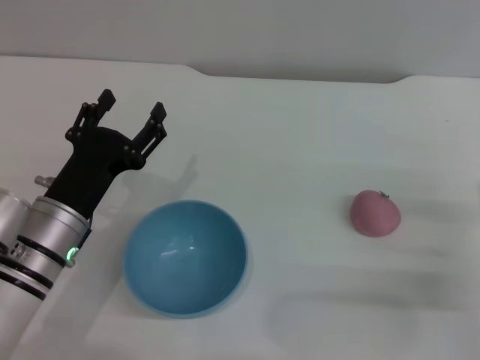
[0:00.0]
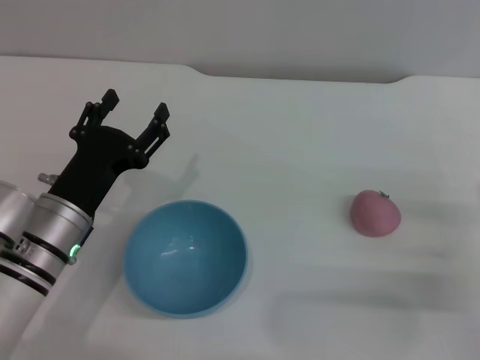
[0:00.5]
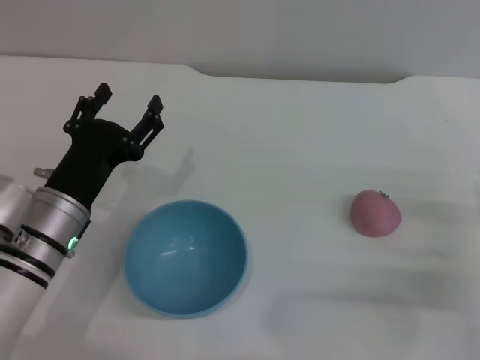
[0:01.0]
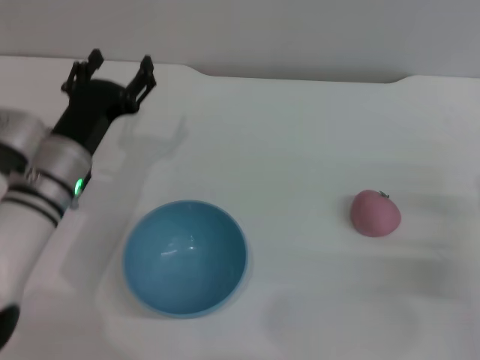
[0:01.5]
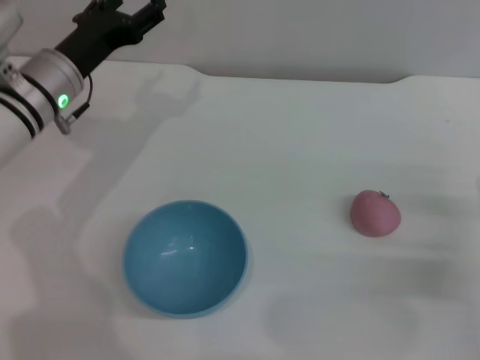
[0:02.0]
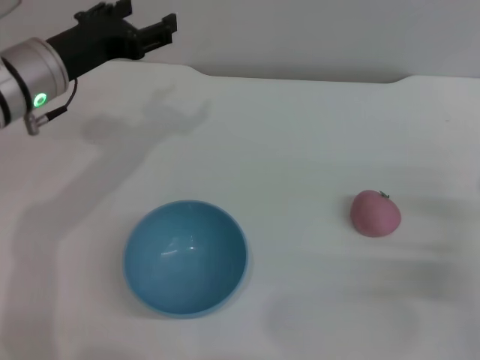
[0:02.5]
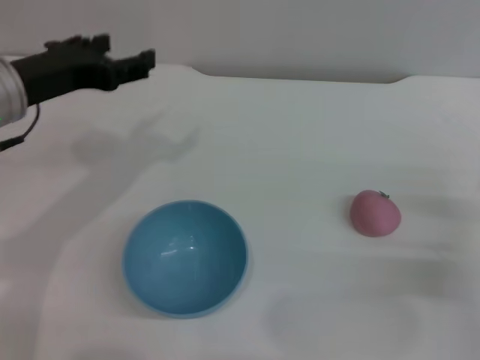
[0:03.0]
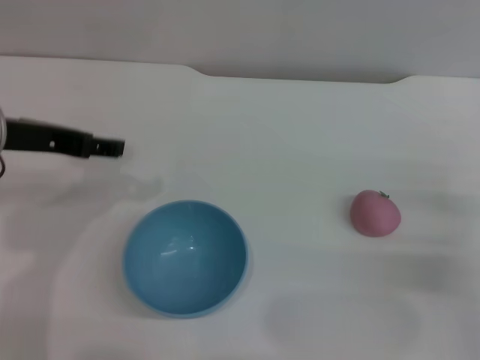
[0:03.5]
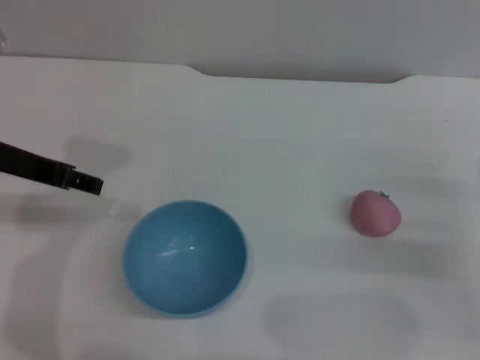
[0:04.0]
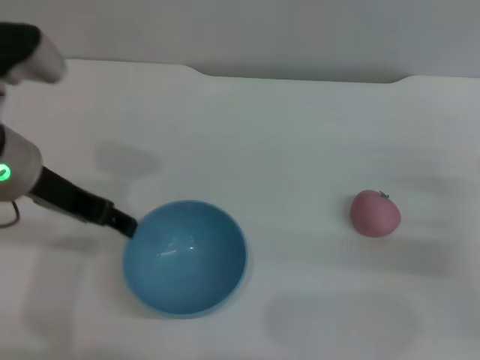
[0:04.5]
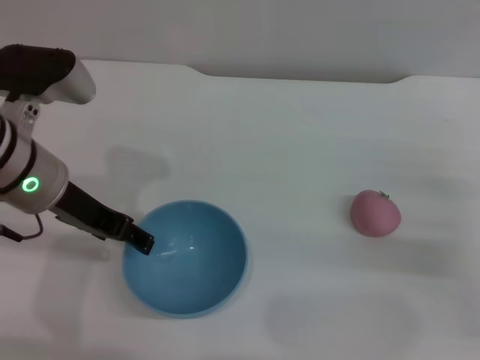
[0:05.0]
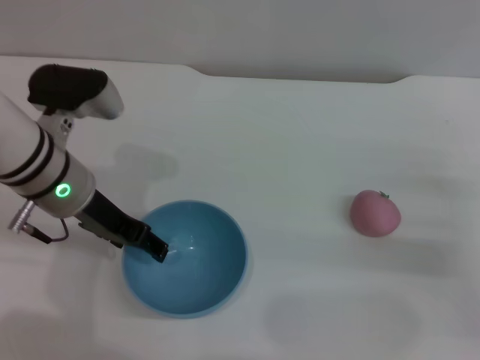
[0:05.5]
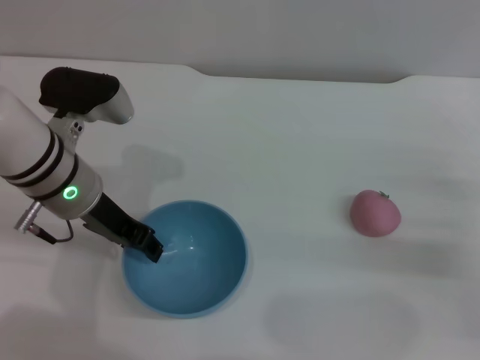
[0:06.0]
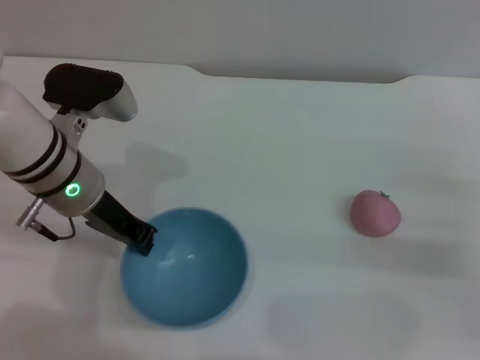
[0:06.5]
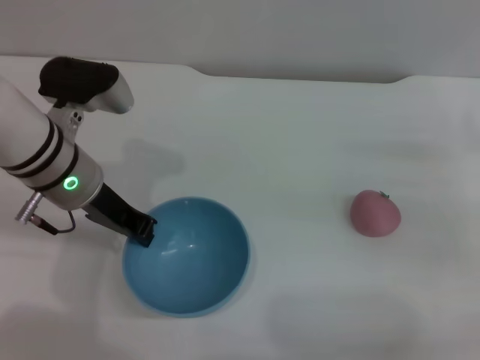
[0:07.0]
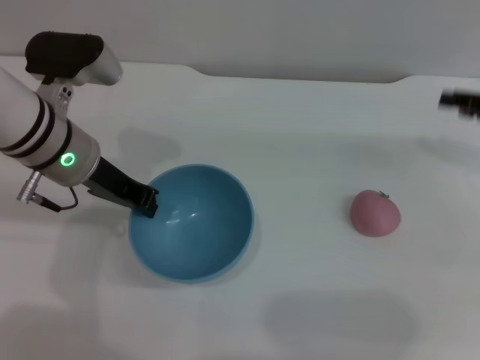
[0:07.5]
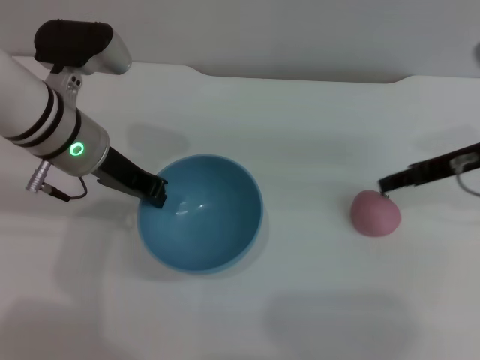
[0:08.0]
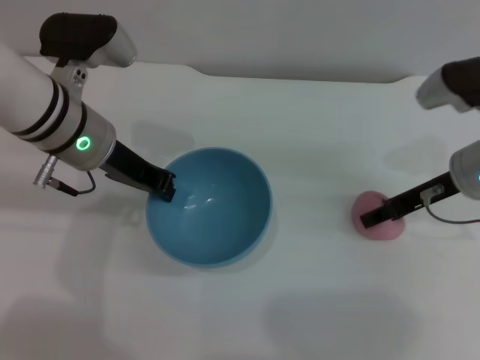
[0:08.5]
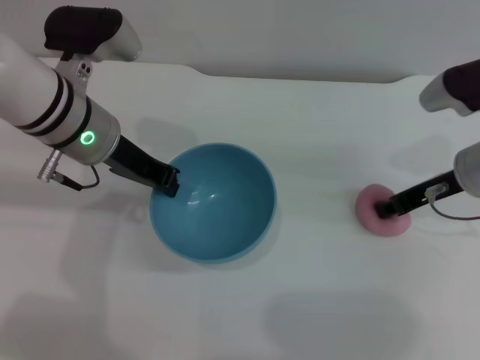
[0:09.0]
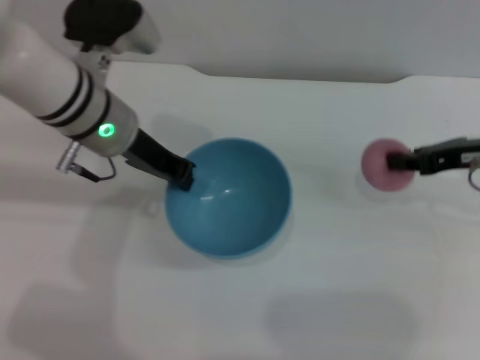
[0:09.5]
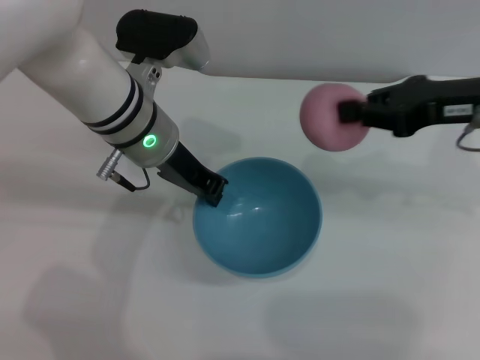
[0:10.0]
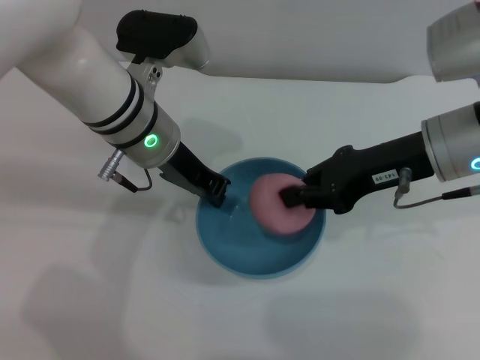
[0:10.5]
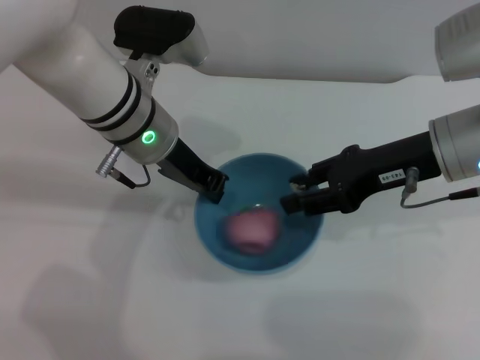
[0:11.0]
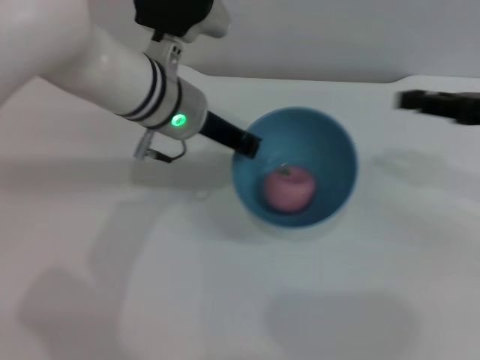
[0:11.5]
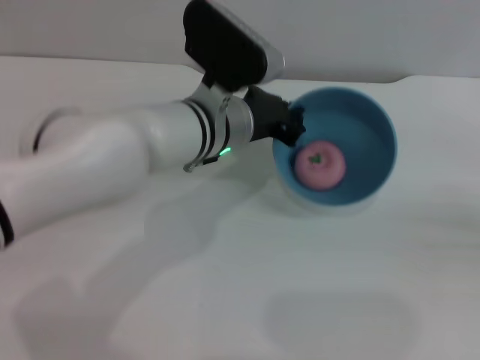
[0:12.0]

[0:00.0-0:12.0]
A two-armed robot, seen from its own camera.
Task of the whole recording: put the peach into the blue bowl and pour it out repeatedly.
Step, 0.0 to 7.5 s: Pick up the bowl with the left gripper.
Step, 8.0 to 9.5 s: Pick up the peach with the right gripper.
Step, 10.0 to 11.0 s: Place the peach into the bowl.
0.0 to 2.0 s: The left gripper is displaced forward and upward by approximately 15 cm.
2.0 to 4.0 s: The left gripper shifts roughly 10 cm backward and upward.
4.0 to 6.0 s: The left gripper is displaced downward and to the right by roughly 10 cm.
6.0 to 8.0 s: The left gripper closes. The right gripper travels forward, upward and to the left by roughly 15 cm.
8.0 to 10.0 s: The left gripper shifts roughly 5 cm to the right; the right gripper travels upward by about 5 cm, and closes.
10.0 to 12.0 s: The left gripper shifts approximately 5 cm to the right. The right gripper shifts approximately 25 cm to the right, backward and downward, and opens.

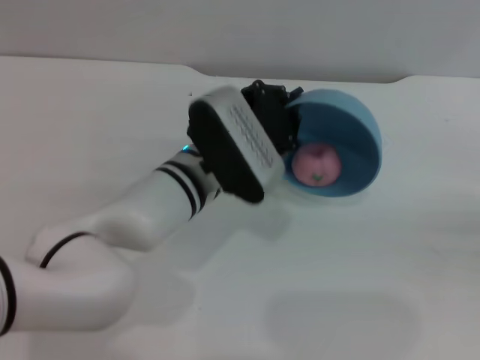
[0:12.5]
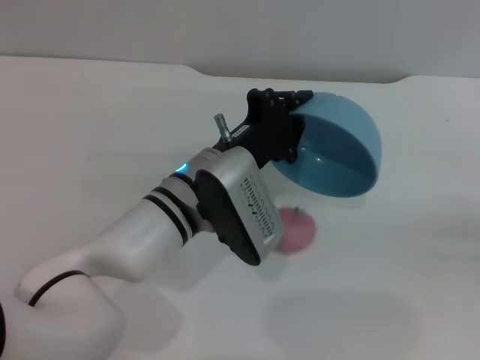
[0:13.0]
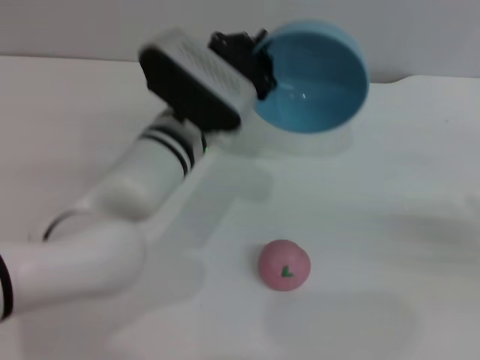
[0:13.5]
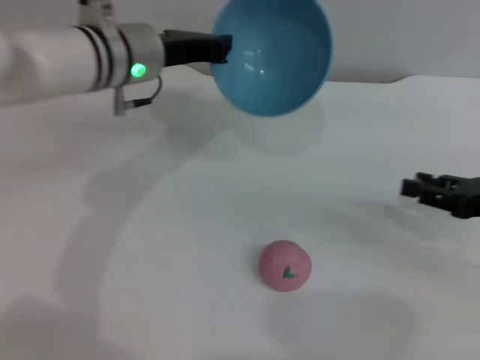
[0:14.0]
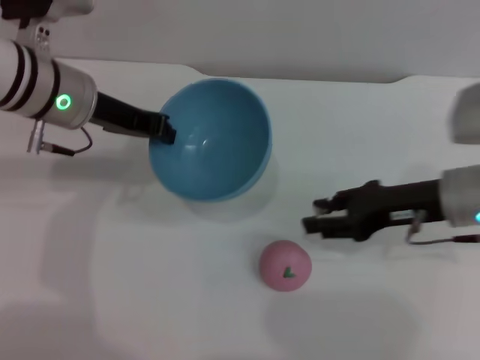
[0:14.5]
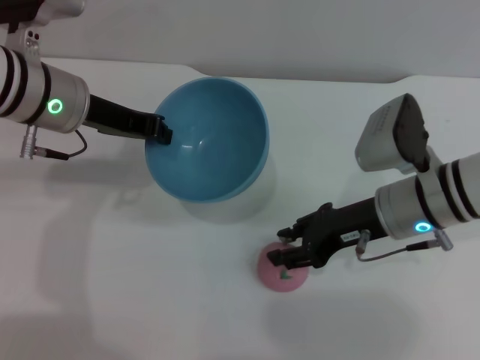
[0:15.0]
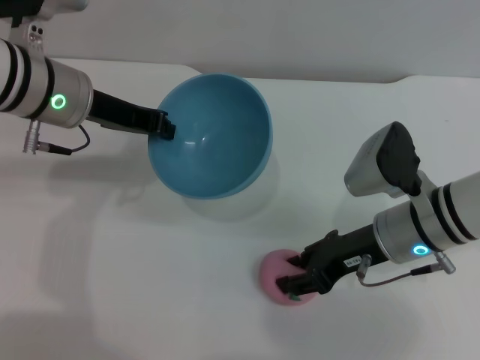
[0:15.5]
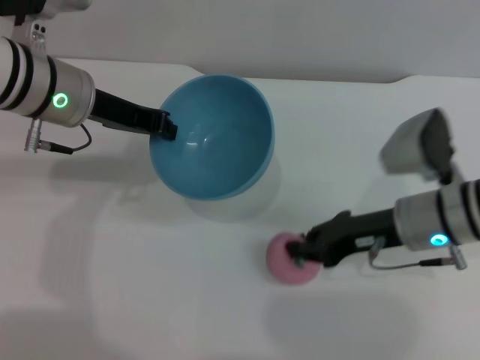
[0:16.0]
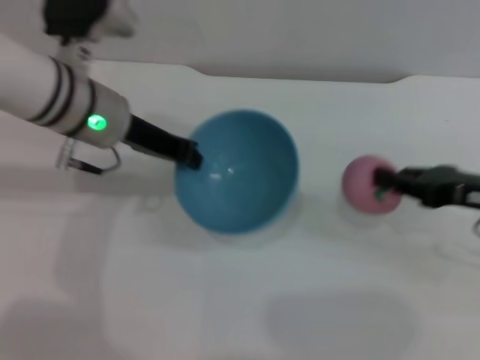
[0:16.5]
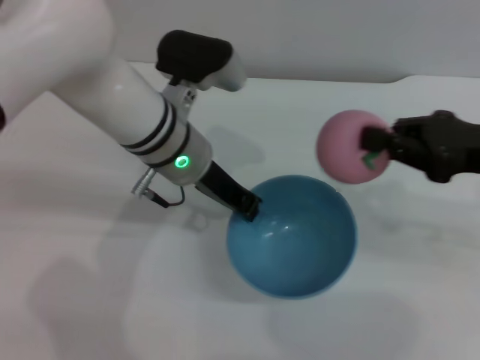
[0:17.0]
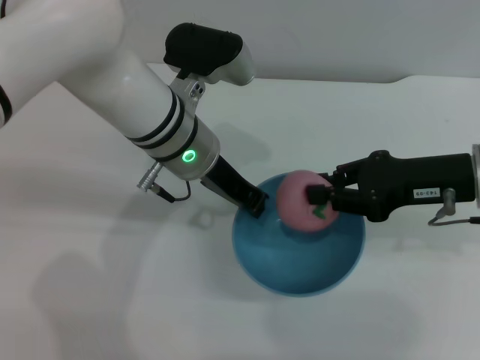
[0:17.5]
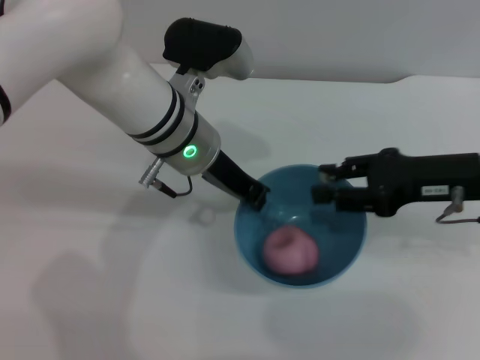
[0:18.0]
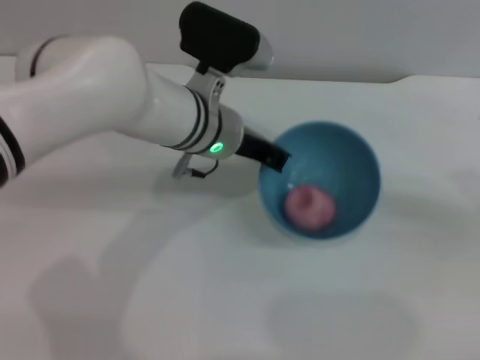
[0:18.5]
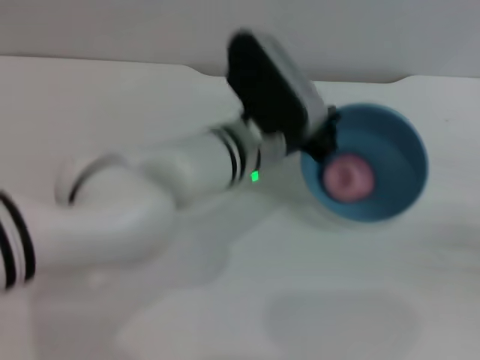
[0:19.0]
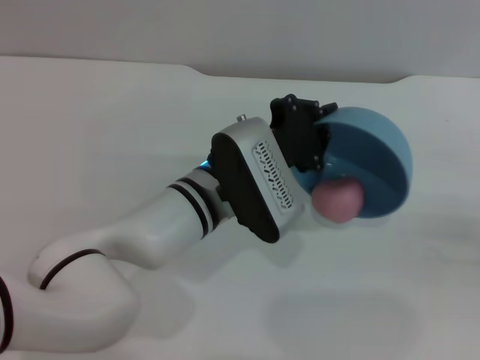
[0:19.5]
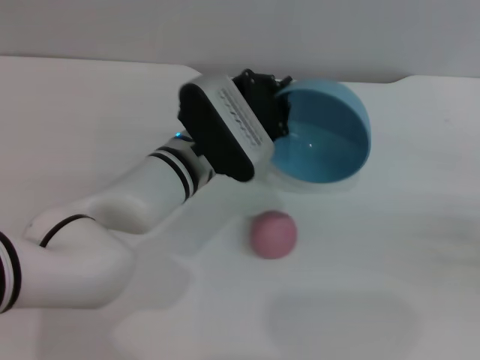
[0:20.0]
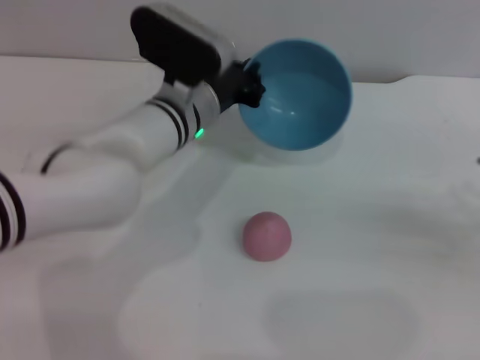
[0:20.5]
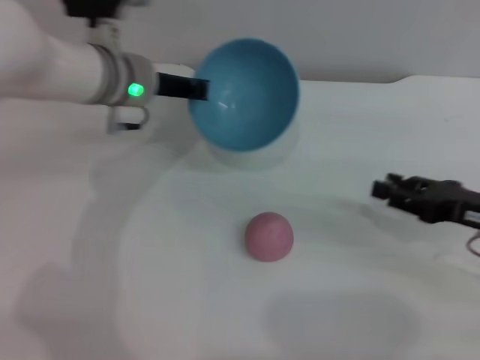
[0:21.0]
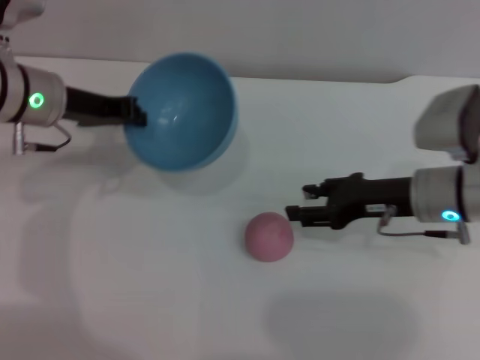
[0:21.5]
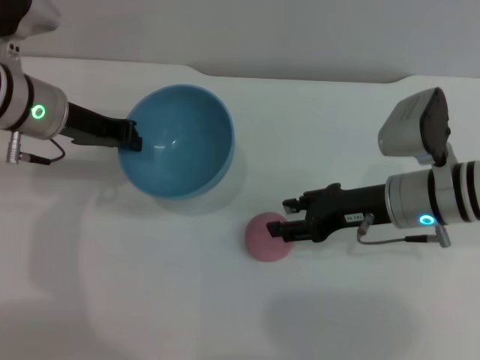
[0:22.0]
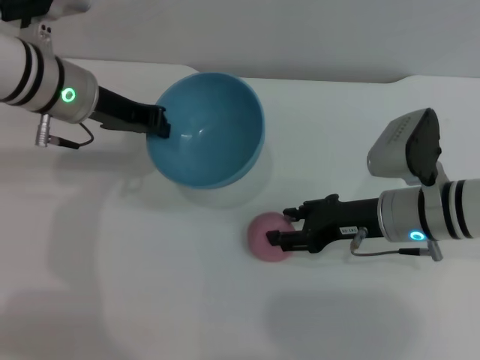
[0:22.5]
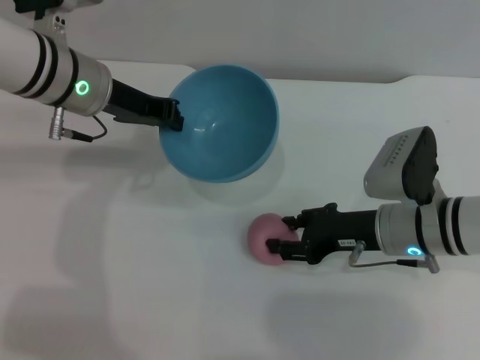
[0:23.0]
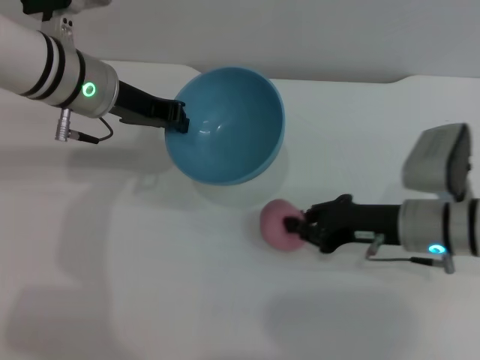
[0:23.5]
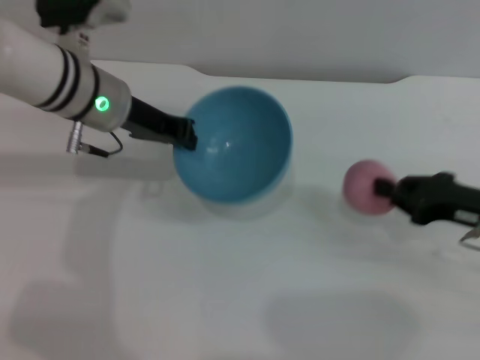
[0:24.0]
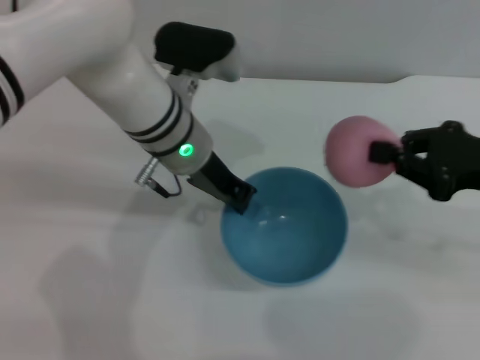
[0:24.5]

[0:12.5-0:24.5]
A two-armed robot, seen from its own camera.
Task of the whole recording: put the peach into the blue bowl and pour it out repeatedly.
Step, 14.0 to 16.0 s: Pick up the peach with the right gripper.
Step, 16.5 to 18.0 s: Place the peach into the bowl.
Step, 18.5 to 19.5 s: Pour the peach out of bowl.
Step, 20.0 to 23.5 s: Pick up the peach with the right gripper.
12.5 to 14.5 s: The left gripper goes roughly 15 cm to the left and upward. Meanwhile the right gripper shifts about 25 cm to the left and forward.
14.5 to 16.5 s: The right gripper goes approximately 5 cm to the right, and closes its fingers.
16.5 to 18.5 s: Both grippers move to the right, roughly 10 cm. The right gripper opens.
18.5 to 20.5 s: The left gripper goes backward and returns, some 5 cm each way.
20.5 to 22.5 s: The right gripper travels to the left by approximately 20 cm, while the left gripper is displaced to the left and upward by some 15 cm.
22.5 to 24.5 s: The left gripper goes about 10 cm to the right, while the right gripper travels to the right and upward by about 15 cm, and closes.

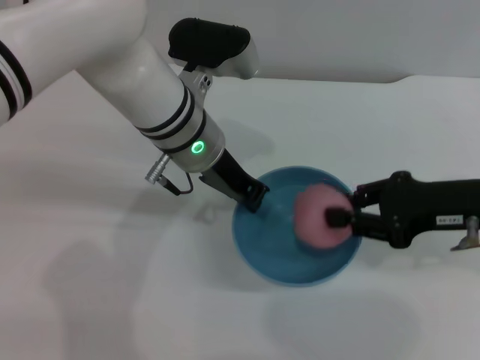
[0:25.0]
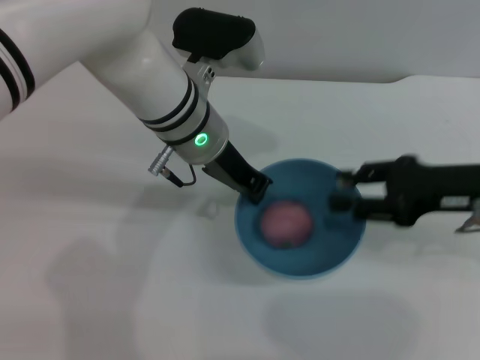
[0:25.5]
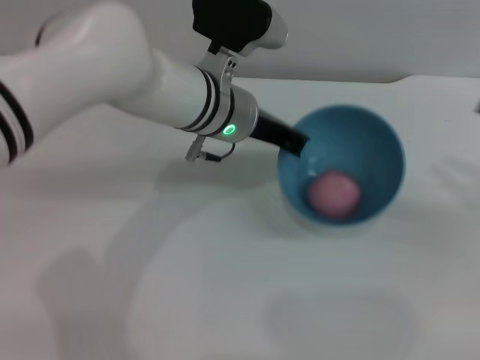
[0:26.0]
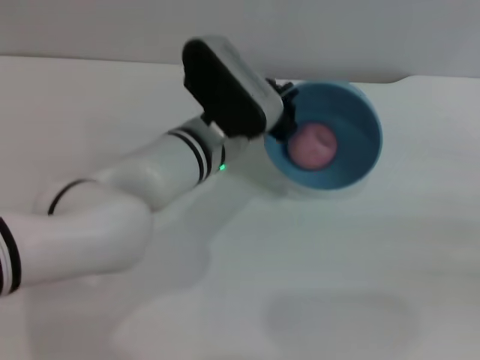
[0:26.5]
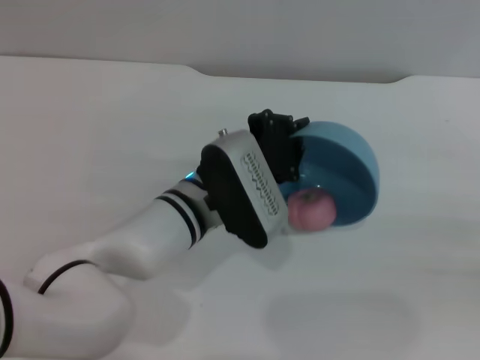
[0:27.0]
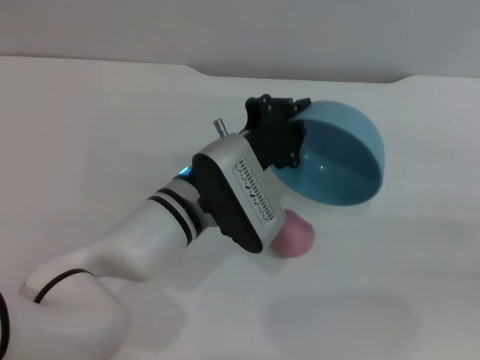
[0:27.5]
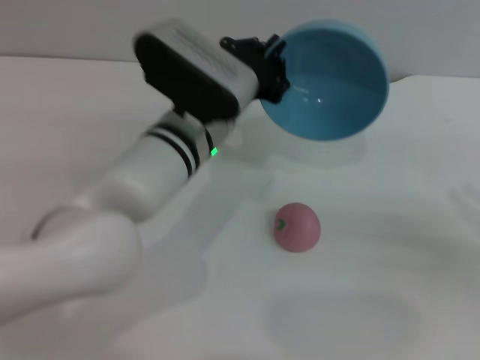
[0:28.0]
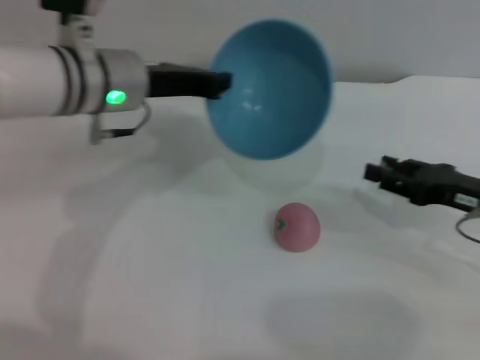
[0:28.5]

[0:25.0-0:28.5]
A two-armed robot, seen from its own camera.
Task of the whole recording: put the peach into the blue bowl and pour it out repeatedly.
Step, 26.0 to 28.0 s: Pour the peach out of bowl.
25.0 to 27.0 s: The right gripper moves to the right and backward, approximately 20 cm, and opens its fingers; the left gripper shifts about 10 cm downward and backward.
27.0 to 28.5 s: The left gripper heads upward, to the left and forward, covering approximately 15 cm. Meanwhile the right gripper moves to the left and forward, approximately 15 cm.
